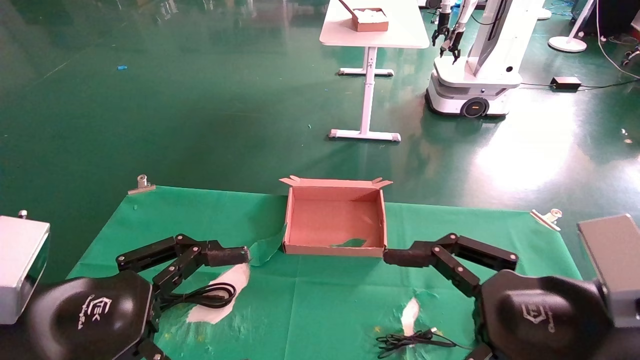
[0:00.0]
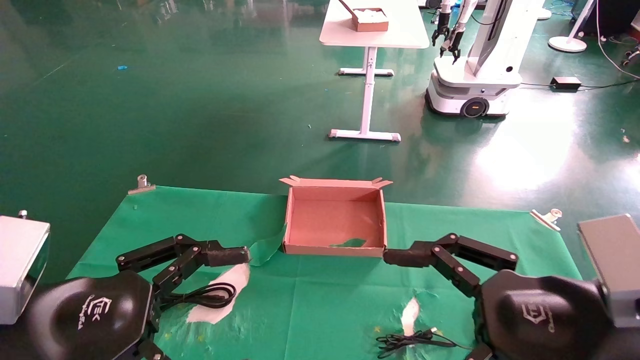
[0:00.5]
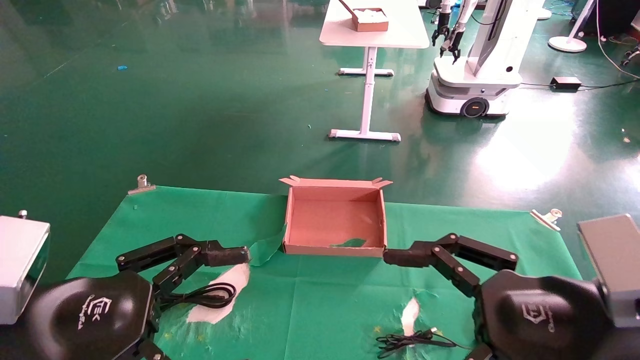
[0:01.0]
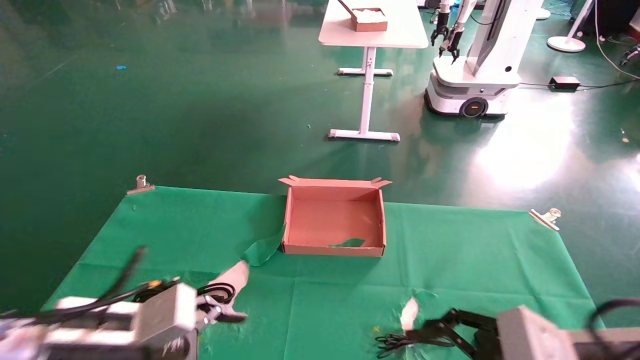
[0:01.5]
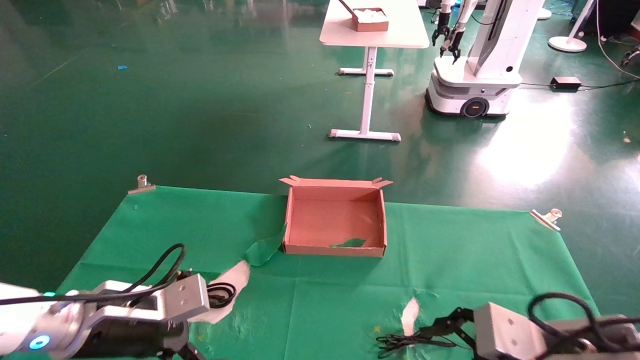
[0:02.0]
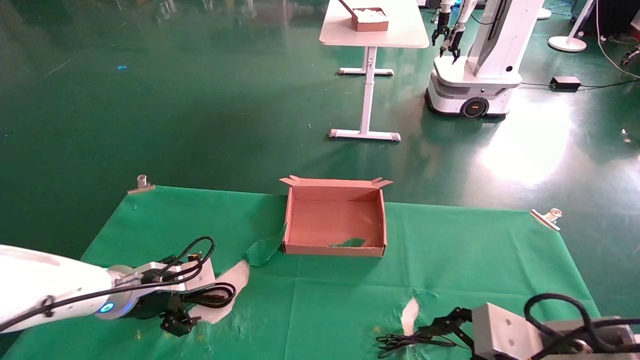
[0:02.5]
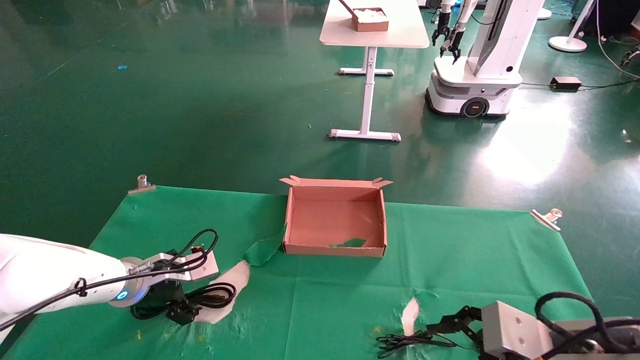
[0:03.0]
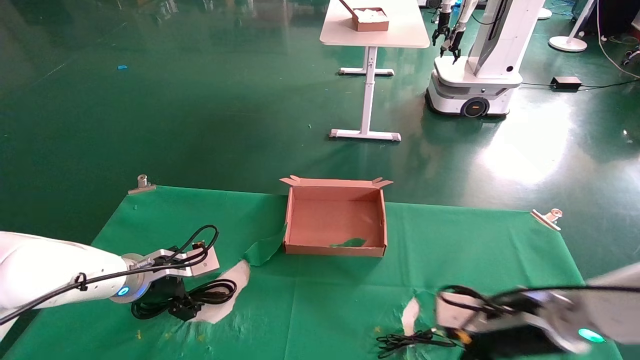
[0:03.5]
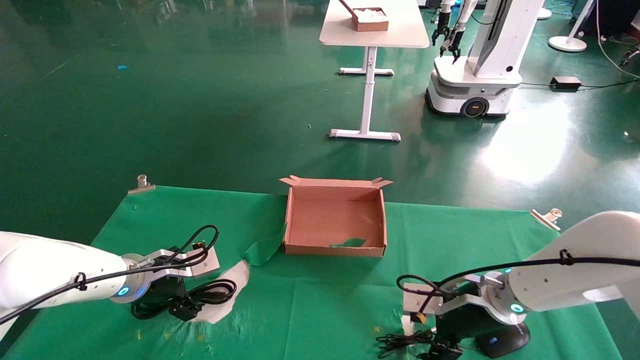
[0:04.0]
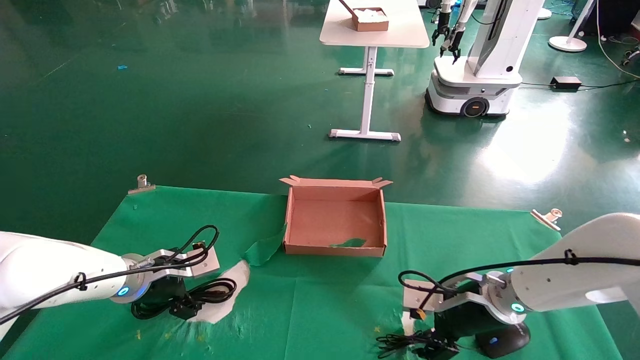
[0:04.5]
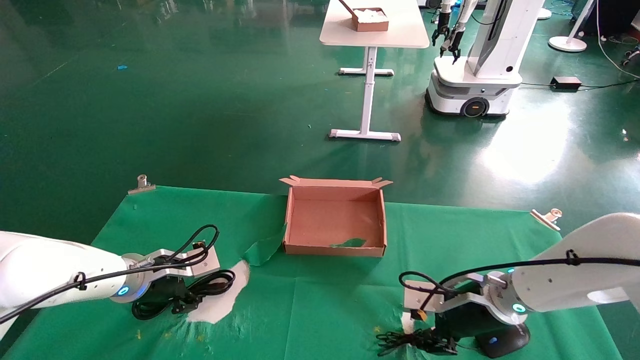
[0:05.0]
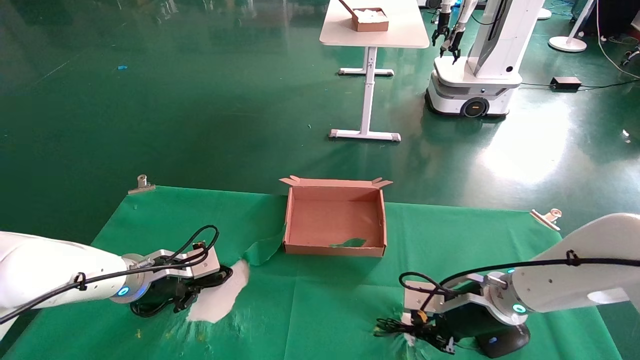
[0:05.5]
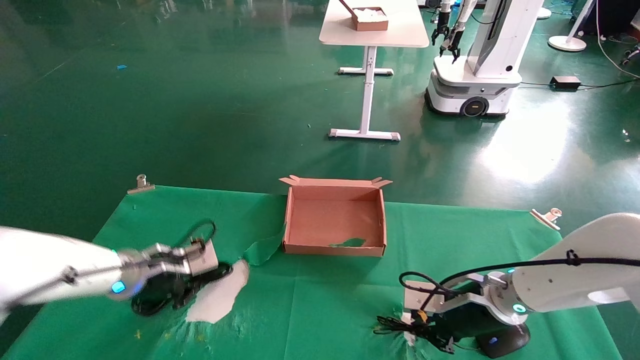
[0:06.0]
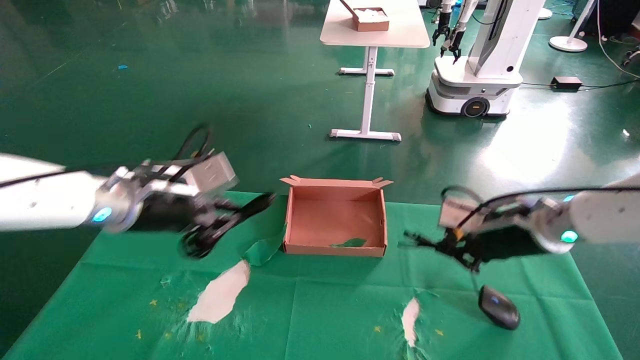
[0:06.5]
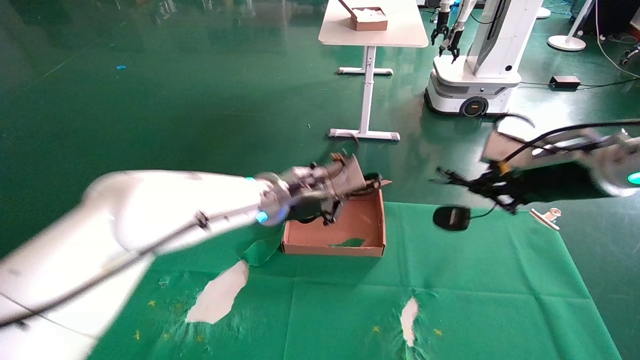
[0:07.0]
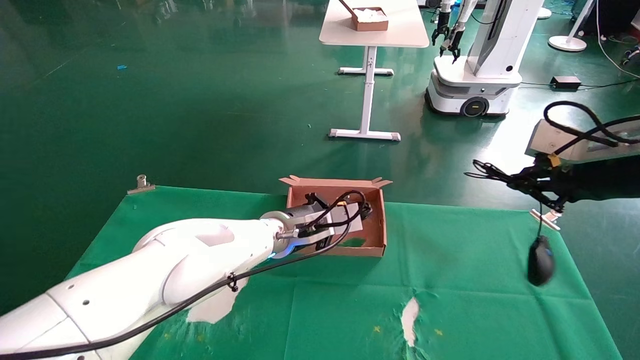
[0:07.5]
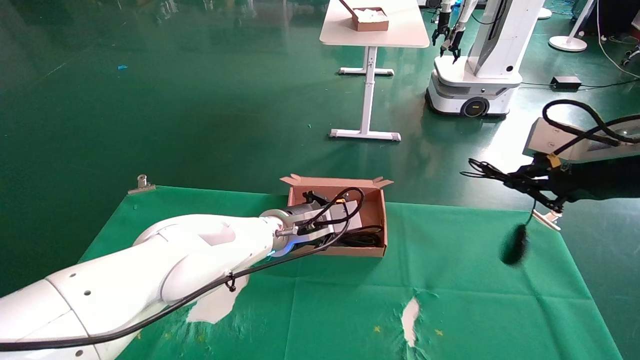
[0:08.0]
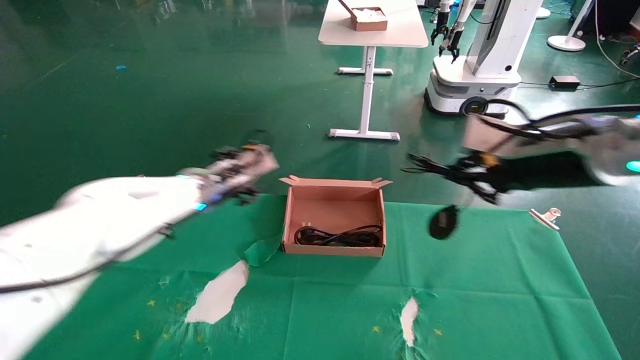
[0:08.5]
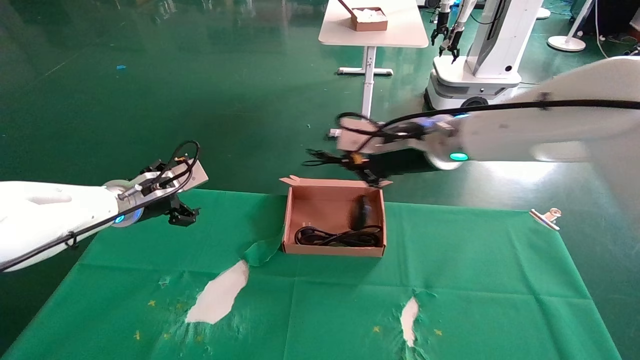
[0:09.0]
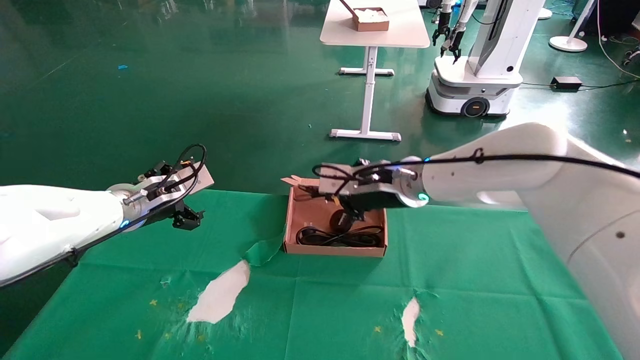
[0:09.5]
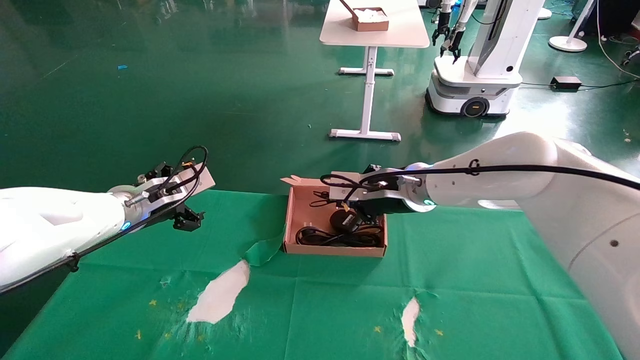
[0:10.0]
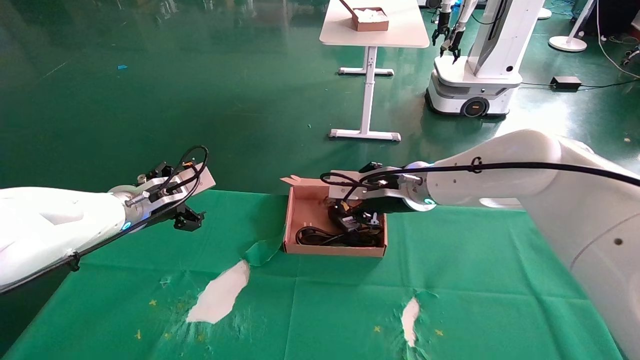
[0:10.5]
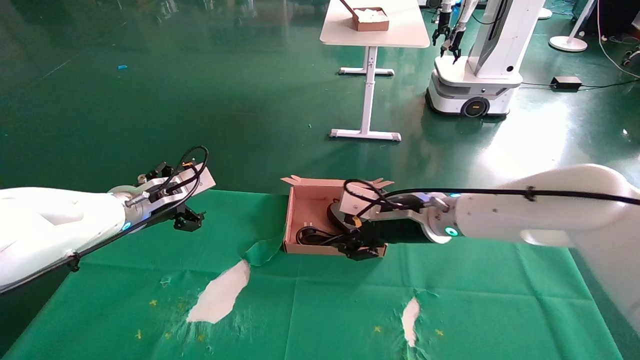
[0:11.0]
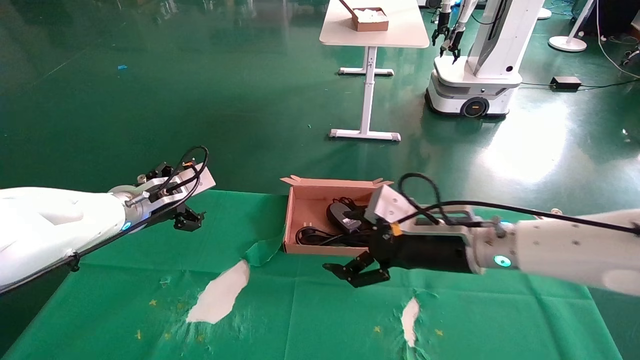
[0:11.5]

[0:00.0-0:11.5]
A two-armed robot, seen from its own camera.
Step, 2.0 to 5.5 s: Grab and lift both the mouse and power cord from the accessory packaging area at the same time.
Step, 6.0 to 11.0 s: Place the mouse and power cord into the box.
0.0 to 2.0 s: The right gripper goes roughly 10 cm downward and forward. Meanwhile the left gripper is displaced forward and downward by roughly 15 cm.
2.0 to 4.0 s: The grippers both shift forward by about 15 cm.
4.0 to 6.0 s: The right gripper closes. Meanwhile the left gripper closes its fingers.
6.0 to 7.5 s: The right gripper is displaced upward and to the right by about 20 cm. Meanwhile the left gripper moves to the right, about 20 cm.
7.5 to 9.5 s: The right gripper shifts approximately 30 cm to the left and forward. The left gripper moves to the left, about 20 cm, and opens.
9.5 to 11.5 s: The right gripper goes about 10 cm backward, downward and to the right, and opens up.

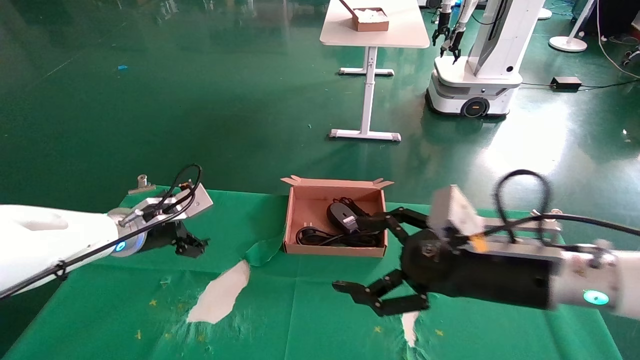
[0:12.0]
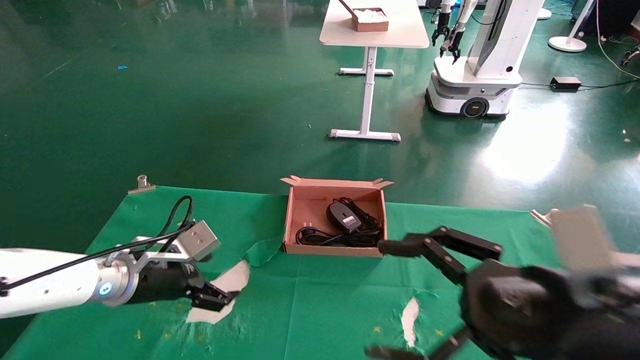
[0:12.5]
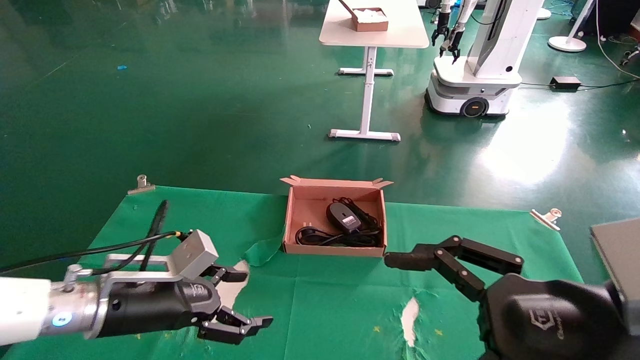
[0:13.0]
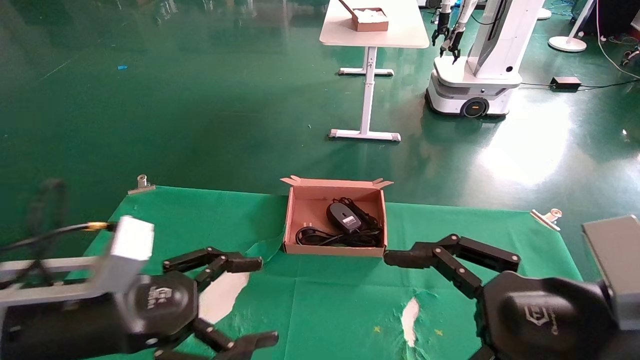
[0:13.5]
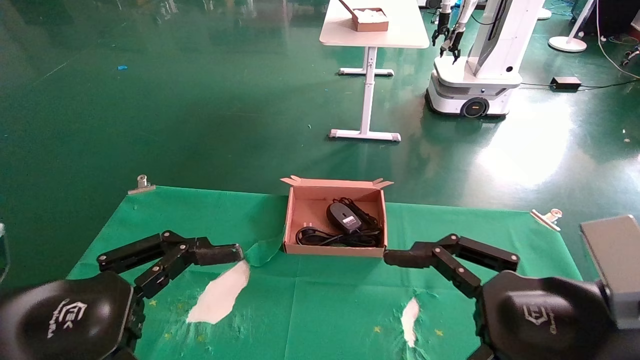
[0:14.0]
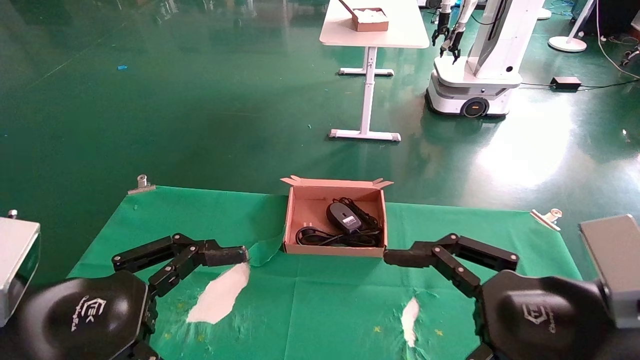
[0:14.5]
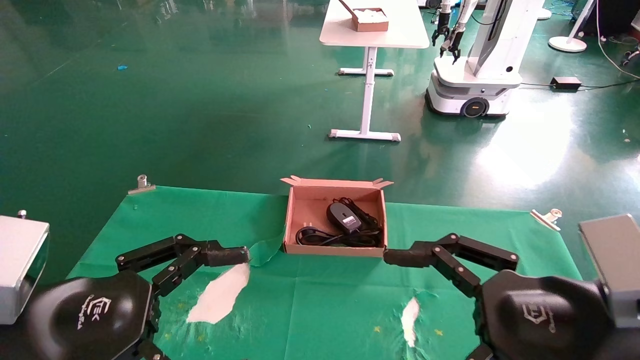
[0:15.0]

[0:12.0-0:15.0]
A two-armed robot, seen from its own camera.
12.0 to 13.5 s: The left gripper moves backward, about 20 cm. Meanwhile the right gripper goes approximately 10 cm backward.
13.5 to 15.0 s: The left gripper shifts by about 5 cm.

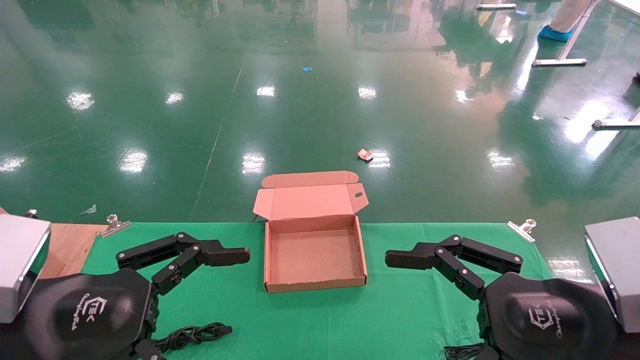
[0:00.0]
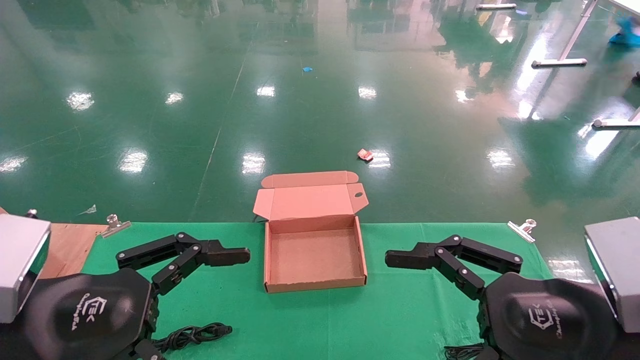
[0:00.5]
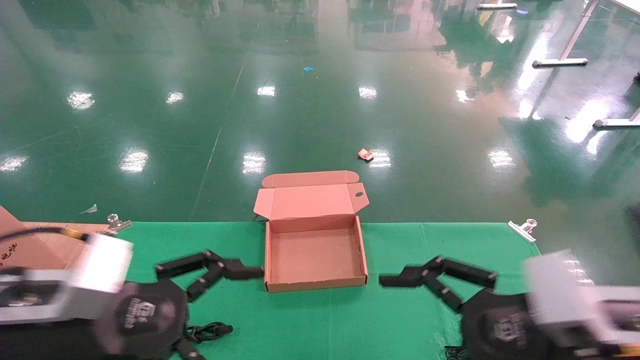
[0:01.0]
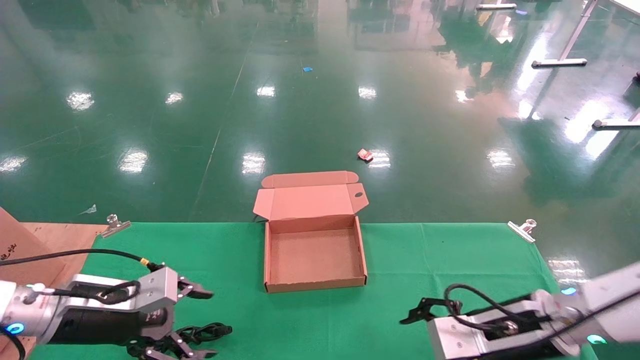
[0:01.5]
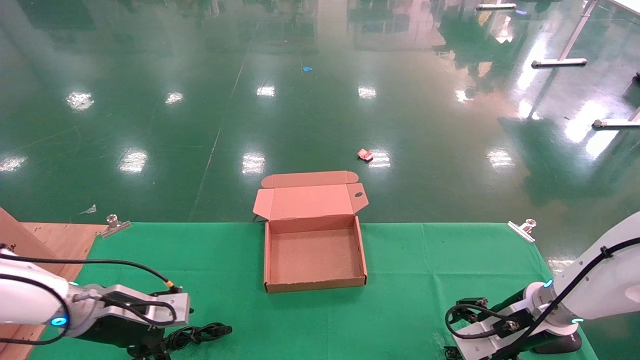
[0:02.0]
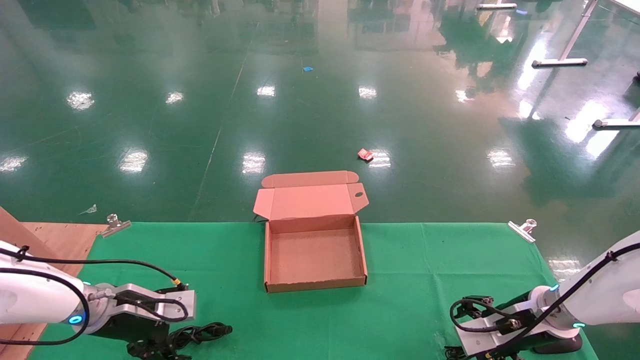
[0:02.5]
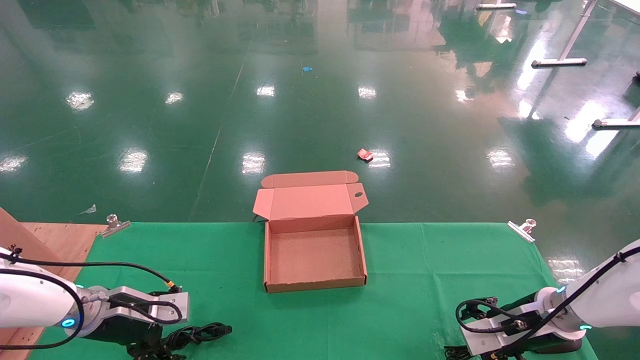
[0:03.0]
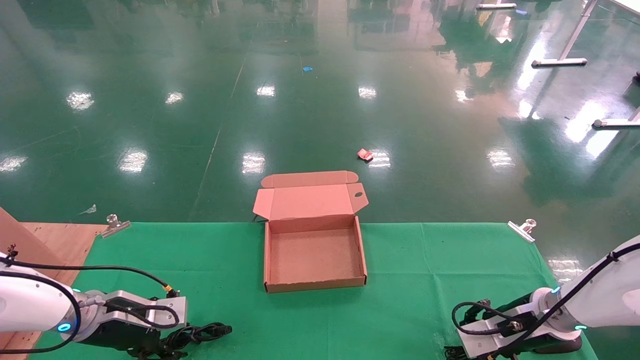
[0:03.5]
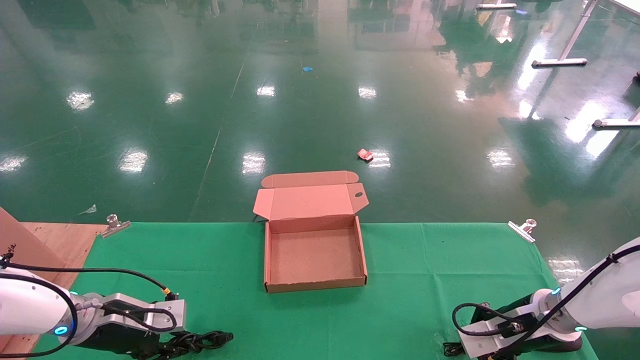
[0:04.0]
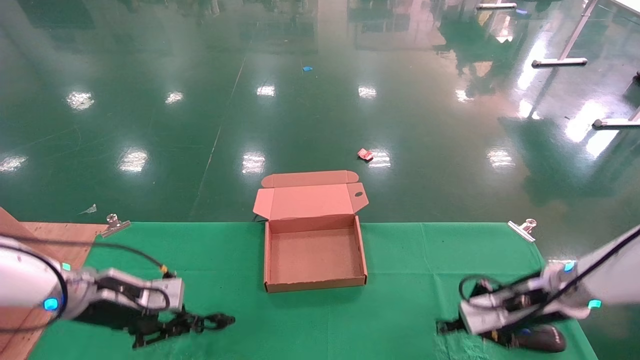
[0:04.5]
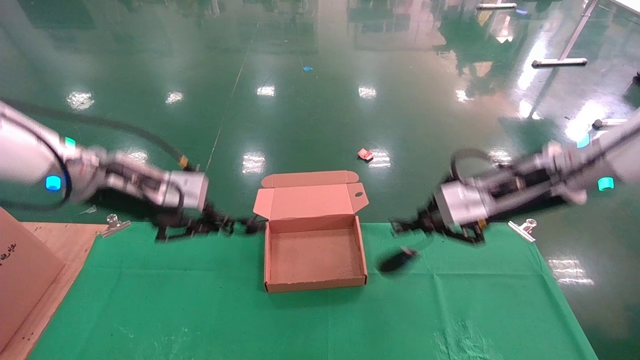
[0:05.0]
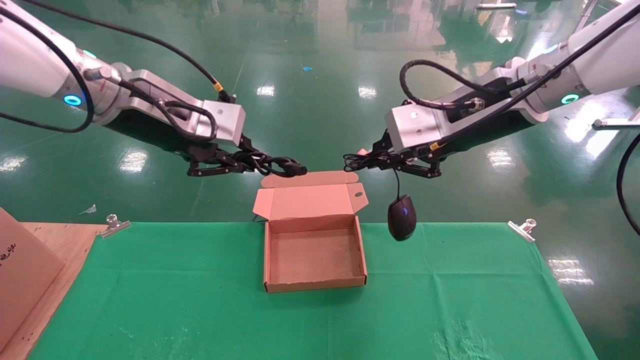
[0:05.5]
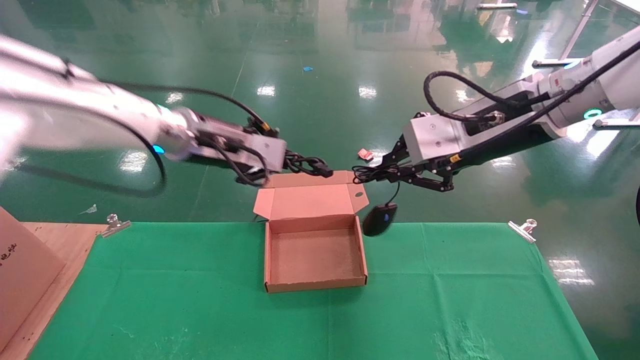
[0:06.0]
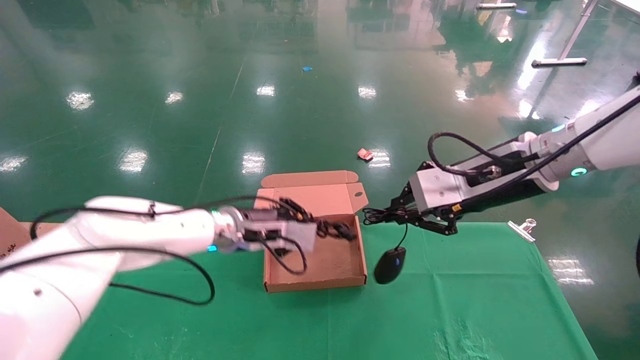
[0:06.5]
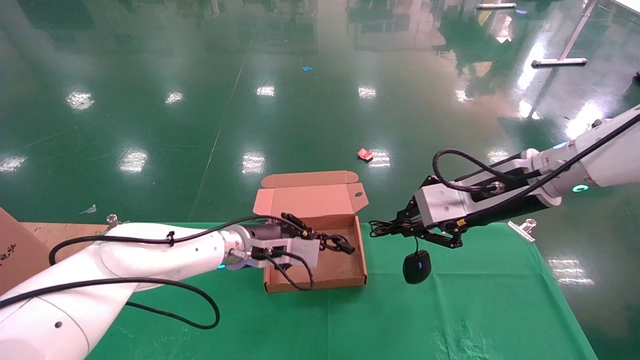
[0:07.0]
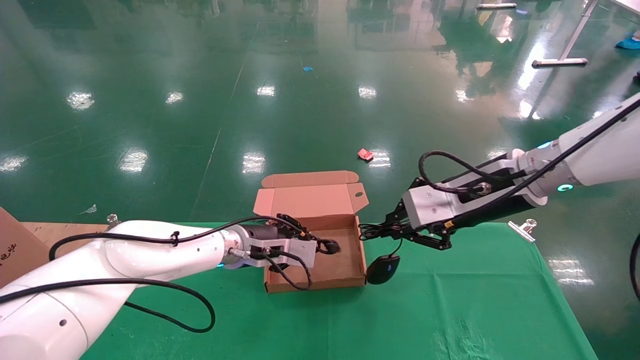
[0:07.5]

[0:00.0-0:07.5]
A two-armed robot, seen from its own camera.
Step, 1.5 to 4.5 s: Grab and lift both the mouse and power cord from the accessory packaging area at the same time.
0.0 to 2.0 s: Both grippers move forward and downward, roughly 25 cm.
2.0 to 4.0 s: The left gripper closes. Meanwhile the right gripper closes up.
4.0 to 5.5 s: The right gripper goes about 30 cm upward. The left gripper is displaced upward and to the right by approximately 35 cm.
5.5 to 7.5 s: The right gripper moves downward, some 10 cm. The left gripper is displaced downward and forward by some 25 cm.
